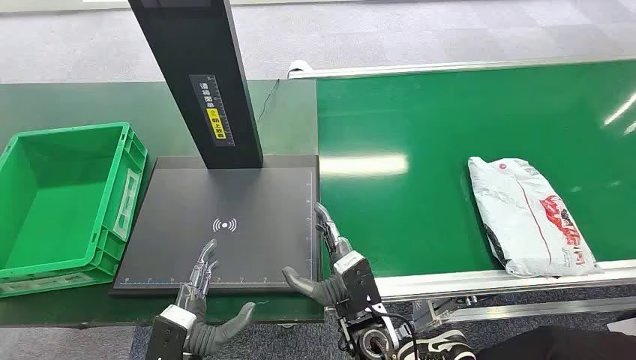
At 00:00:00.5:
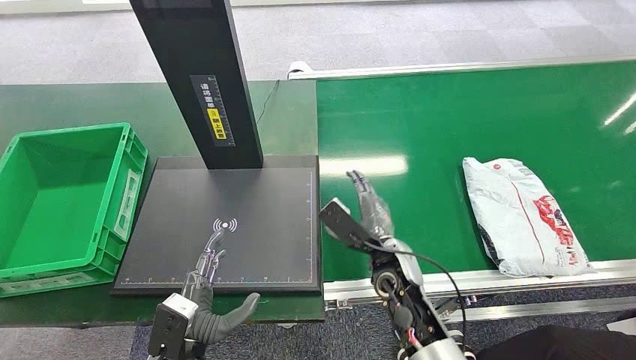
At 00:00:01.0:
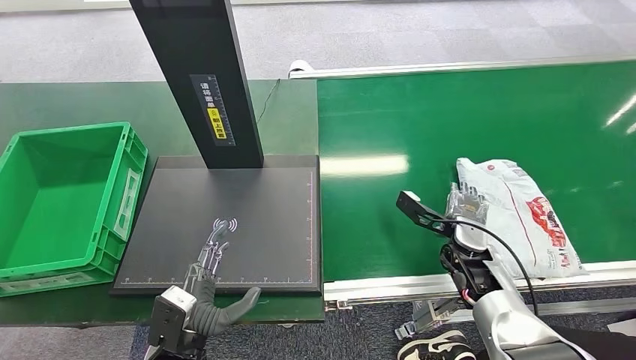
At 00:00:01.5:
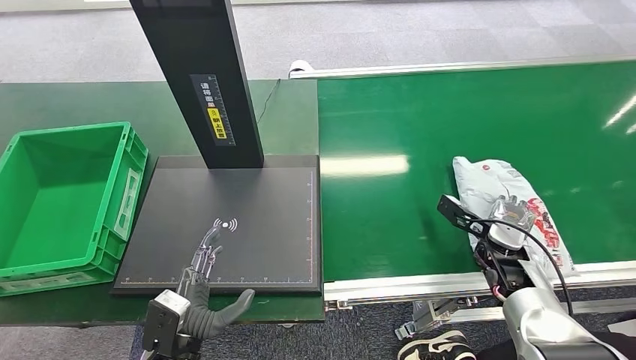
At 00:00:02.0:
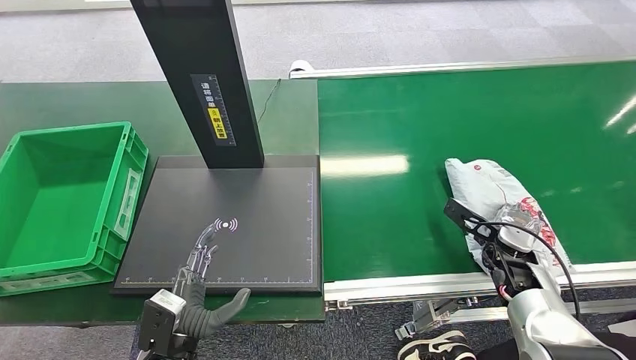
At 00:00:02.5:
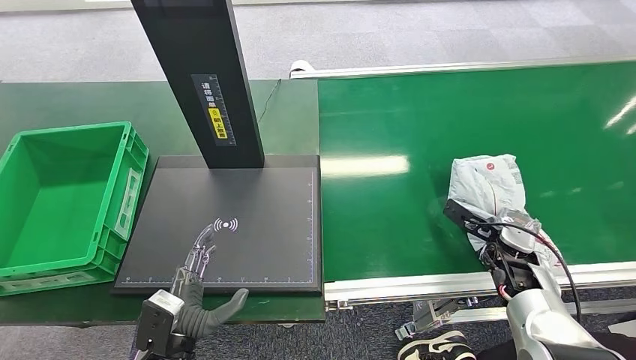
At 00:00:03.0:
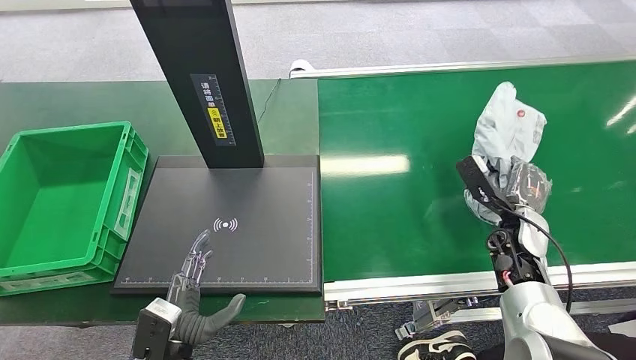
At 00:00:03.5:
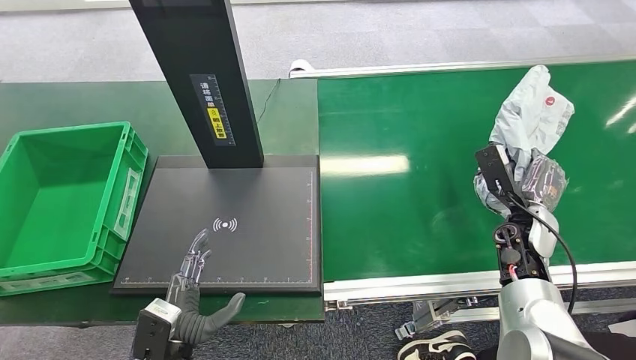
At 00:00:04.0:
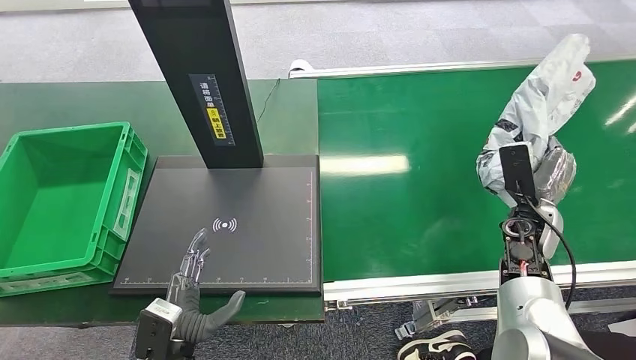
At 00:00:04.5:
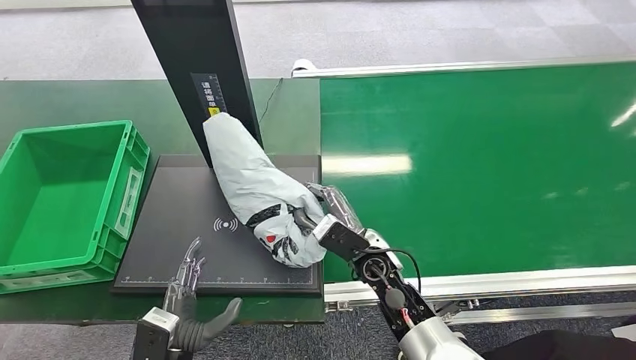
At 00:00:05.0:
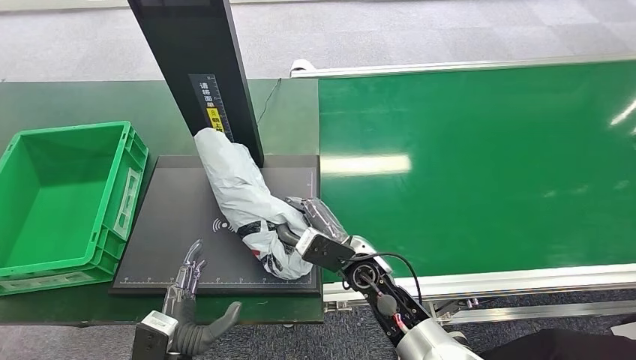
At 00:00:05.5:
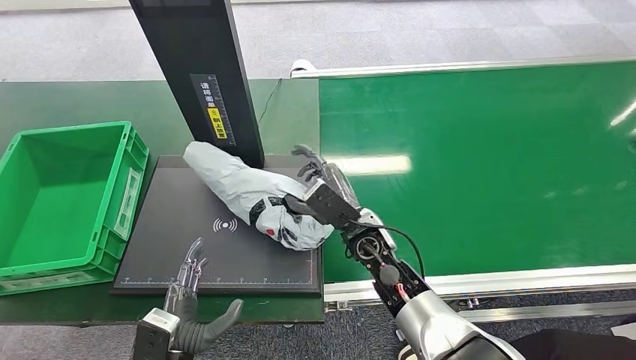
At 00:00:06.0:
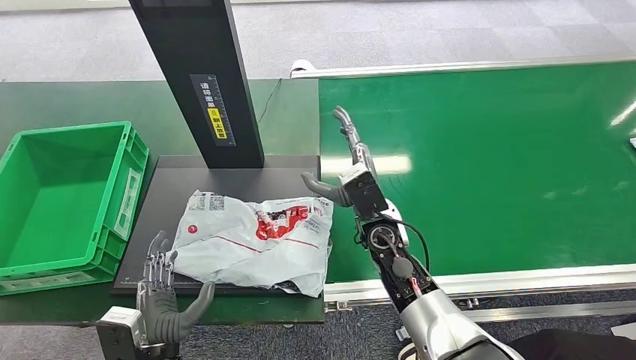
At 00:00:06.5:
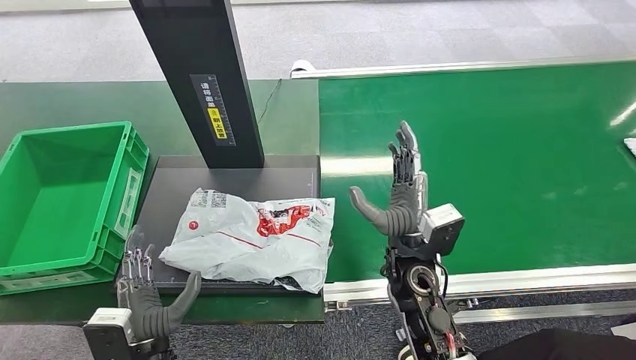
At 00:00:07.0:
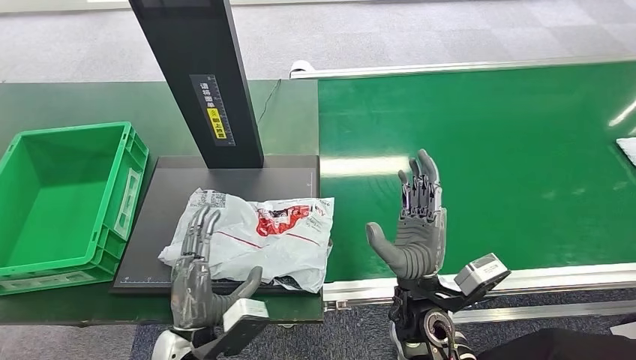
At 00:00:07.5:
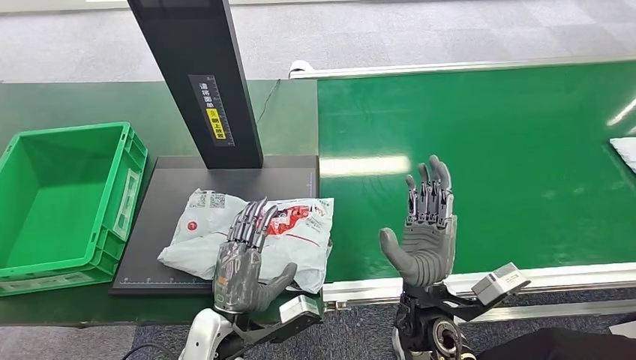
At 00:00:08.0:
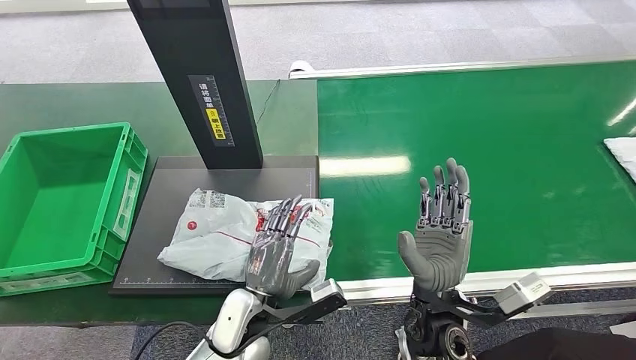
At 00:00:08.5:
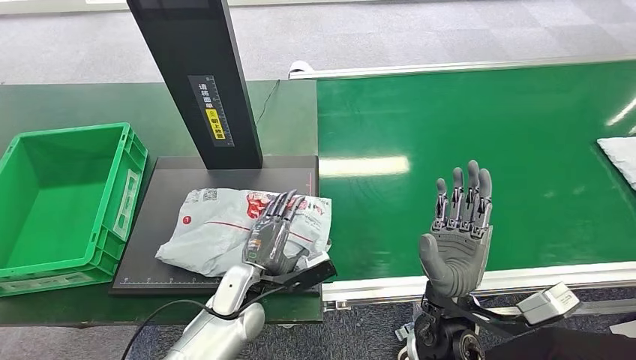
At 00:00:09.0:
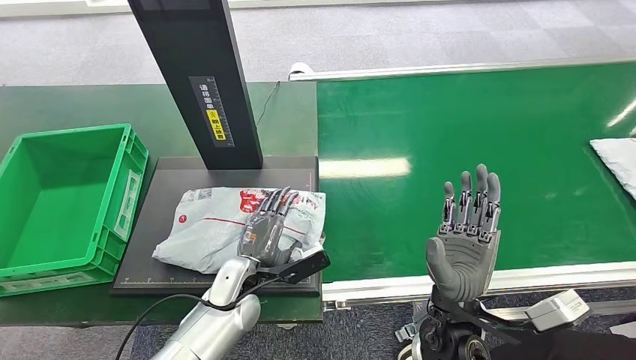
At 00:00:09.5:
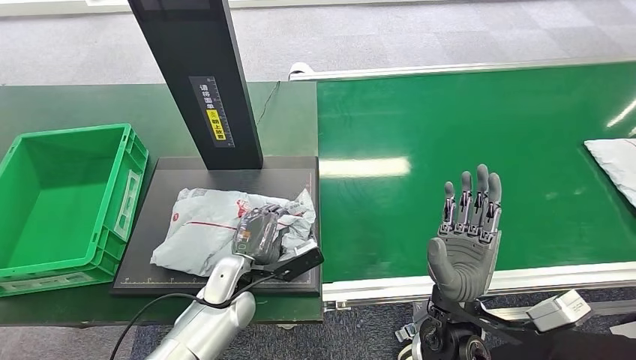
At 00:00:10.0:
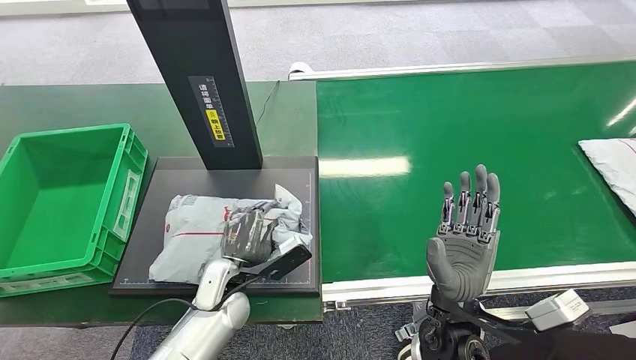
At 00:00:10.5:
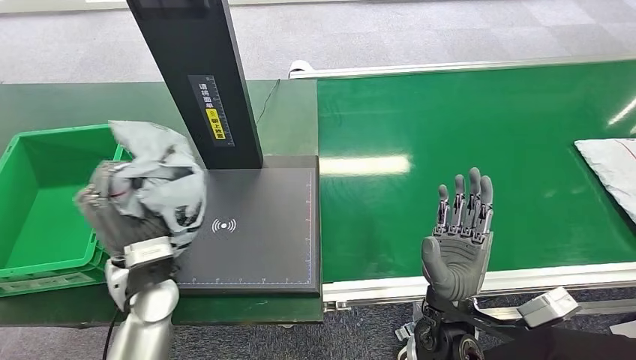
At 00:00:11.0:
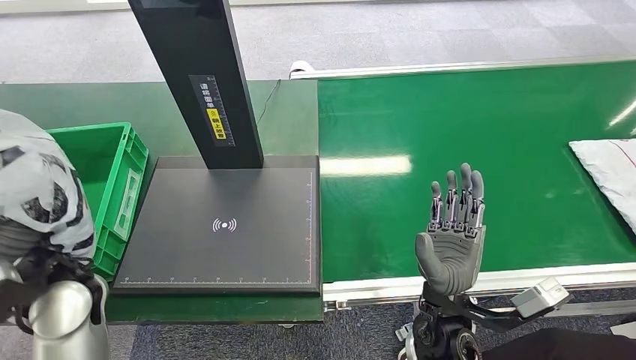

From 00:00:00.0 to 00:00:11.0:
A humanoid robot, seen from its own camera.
Step, from 00:00:00.0 to 00:00:03.5: Pick up the package from the conveyor belt.
Step, from 00:00:04.0 to 00:00:06.5: Place the package onto the inbound machine.
Step, from 00:00:07.0 to 00:00:11.0: Pick up the package from the inbound machine.
From 00:00:07.5 to 00:00:09.0: The left hand is displaced forward by roughly 10 cm.

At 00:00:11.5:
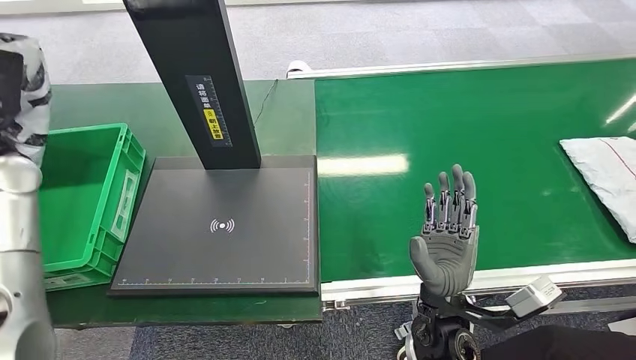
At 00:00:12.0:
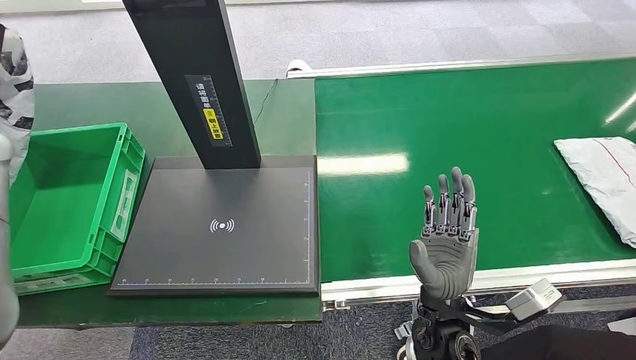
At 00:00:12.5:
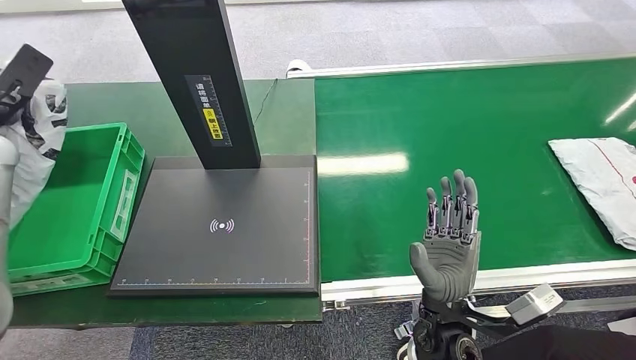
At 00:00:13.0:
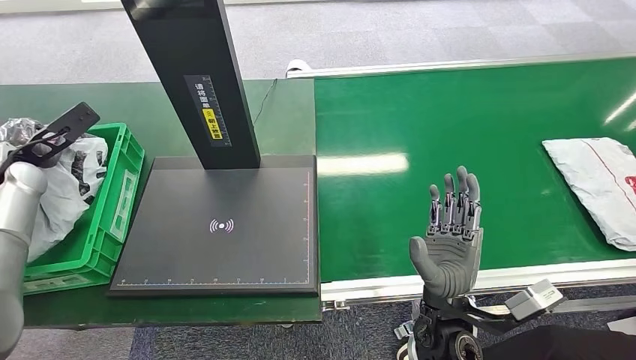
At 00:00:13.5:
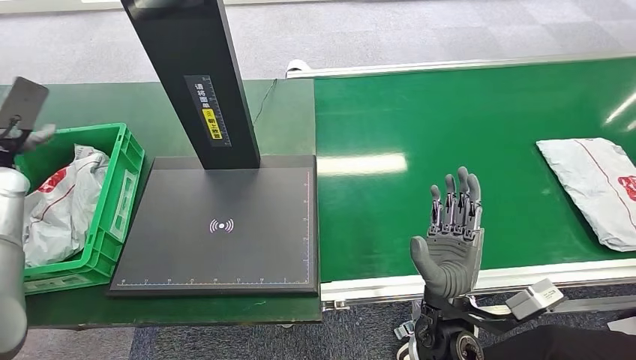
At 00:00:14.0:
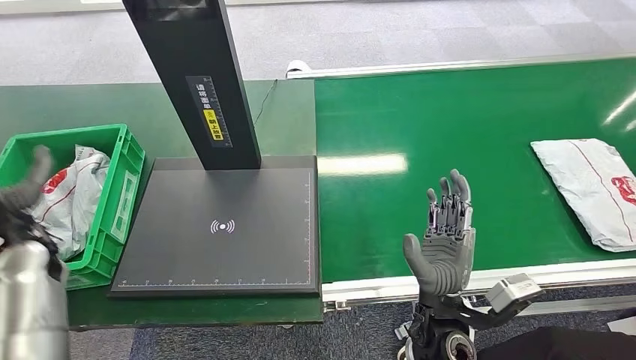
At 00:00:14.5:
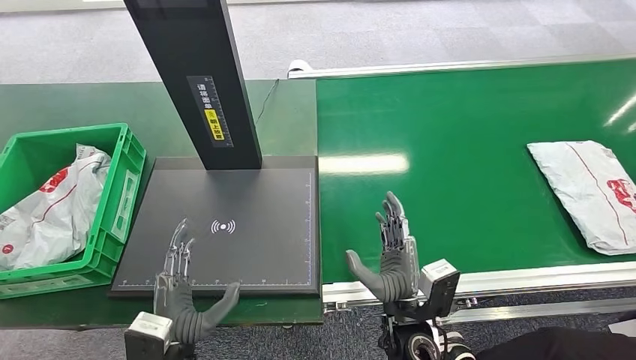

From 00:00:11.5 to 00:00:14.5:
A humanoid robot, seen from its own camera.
Step, from 00:00:11.5 to 00:00:14.5: Place the package into the parcel locker.
From 00:00:11.5 to 00:00:13.0: The left hand moves downward, approximately 5 cm.
